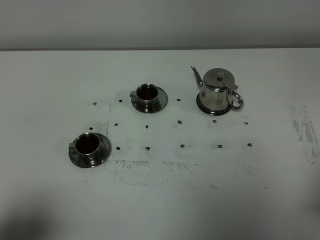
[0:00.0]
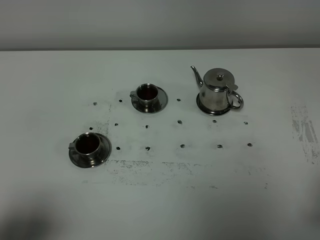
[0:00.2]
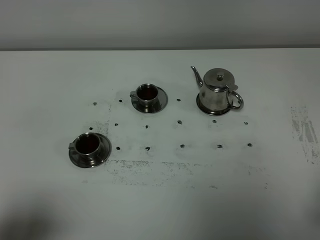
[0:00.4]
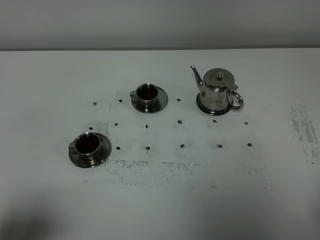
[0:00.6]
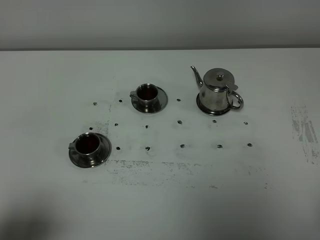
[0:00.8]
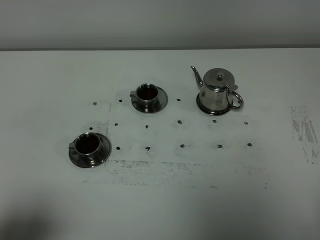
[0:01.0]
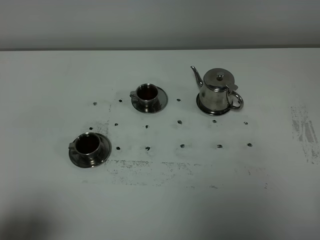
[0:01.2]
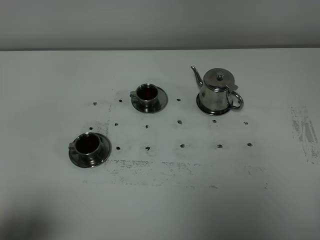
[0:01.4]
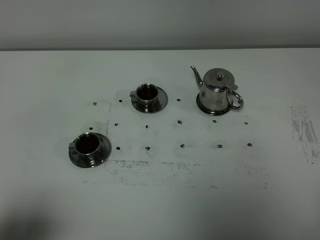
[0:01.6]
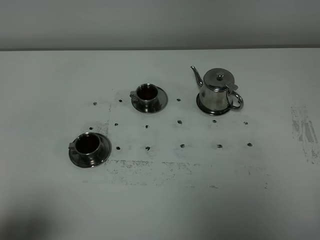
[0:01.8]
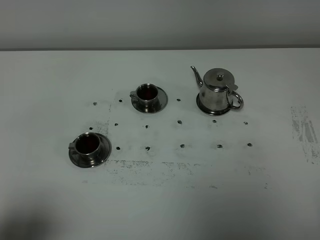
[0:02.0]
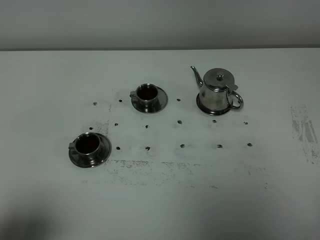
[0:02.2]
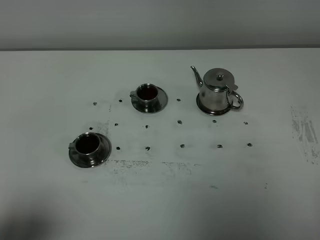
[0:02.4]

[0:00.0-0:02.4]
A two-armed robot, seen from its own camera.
Task of the whole recording: grasp the stainless steel teapot and pour the tea into the two stainless steel teacups one by one, put the stainless steel teapot back in its original place.
0:01.2 to 0:02.4: Both grippers stay put.
